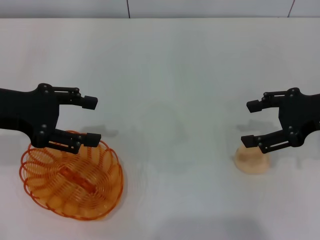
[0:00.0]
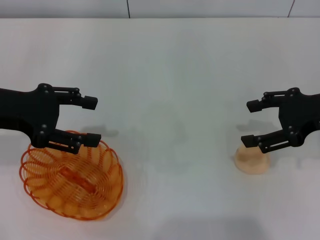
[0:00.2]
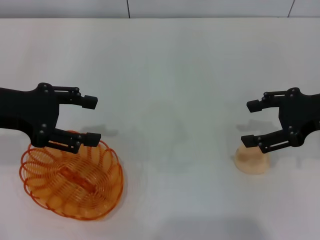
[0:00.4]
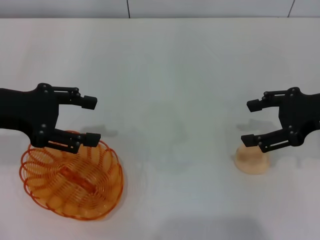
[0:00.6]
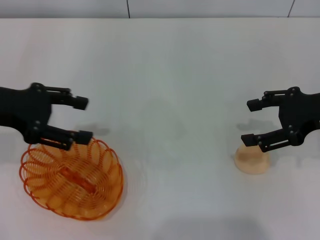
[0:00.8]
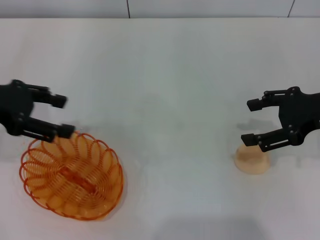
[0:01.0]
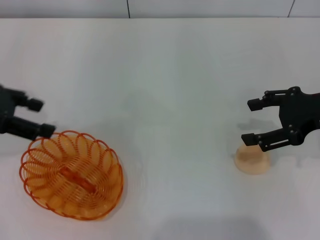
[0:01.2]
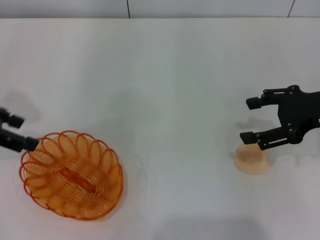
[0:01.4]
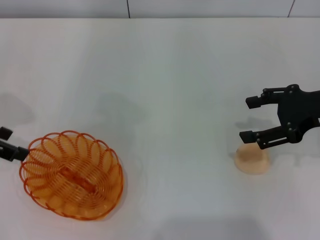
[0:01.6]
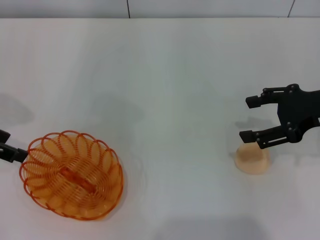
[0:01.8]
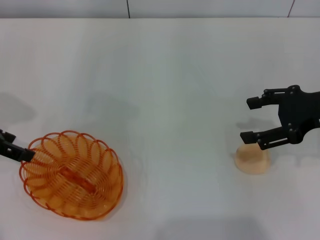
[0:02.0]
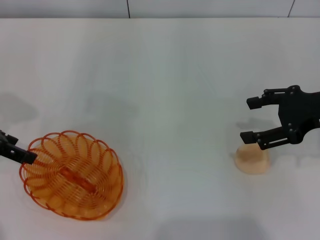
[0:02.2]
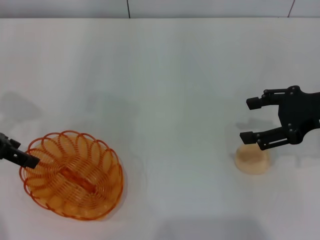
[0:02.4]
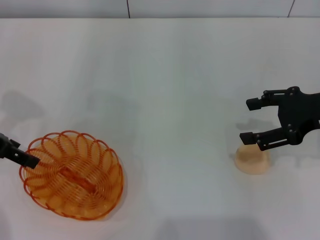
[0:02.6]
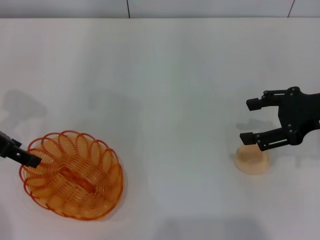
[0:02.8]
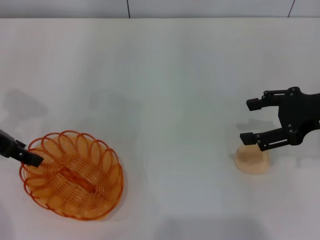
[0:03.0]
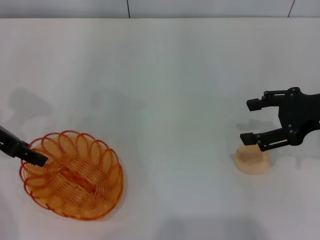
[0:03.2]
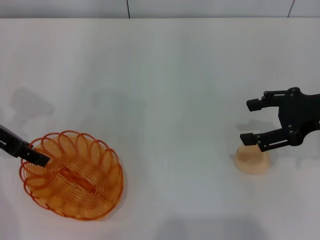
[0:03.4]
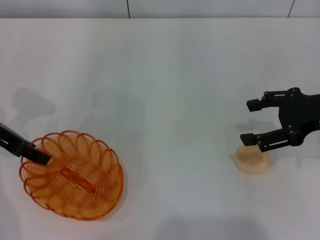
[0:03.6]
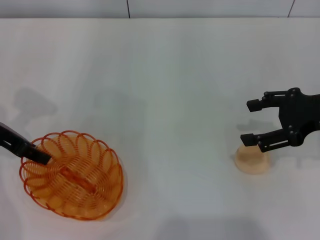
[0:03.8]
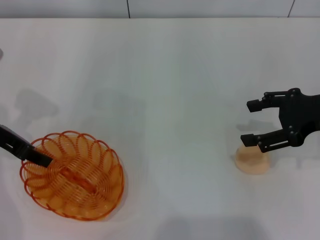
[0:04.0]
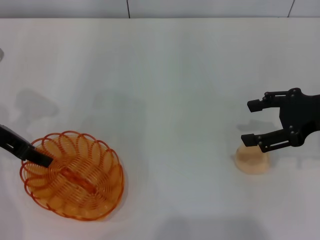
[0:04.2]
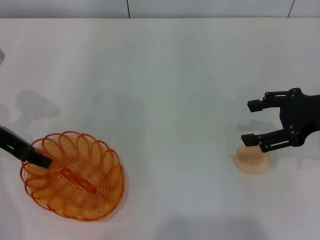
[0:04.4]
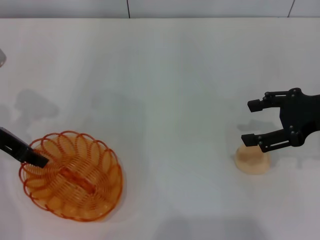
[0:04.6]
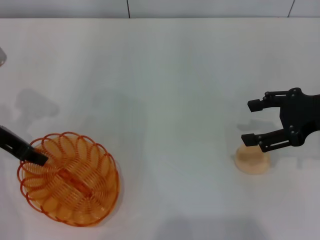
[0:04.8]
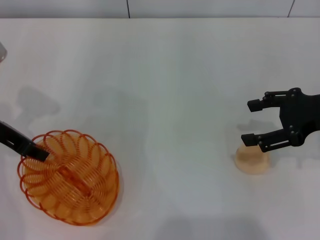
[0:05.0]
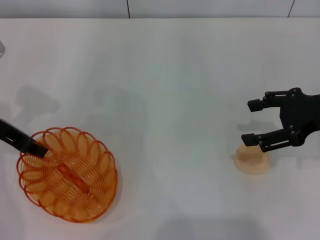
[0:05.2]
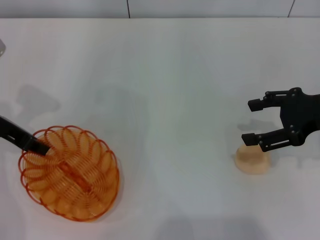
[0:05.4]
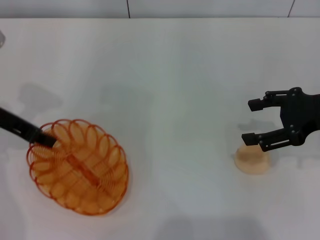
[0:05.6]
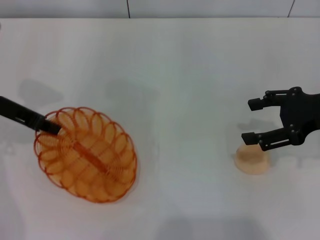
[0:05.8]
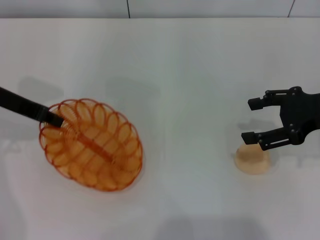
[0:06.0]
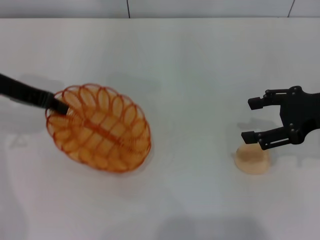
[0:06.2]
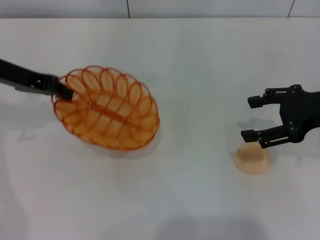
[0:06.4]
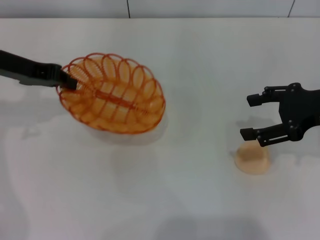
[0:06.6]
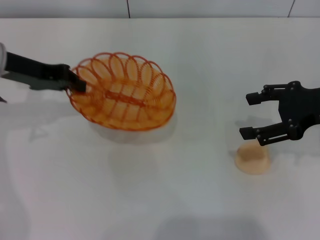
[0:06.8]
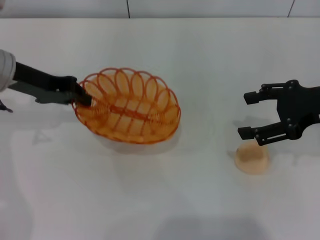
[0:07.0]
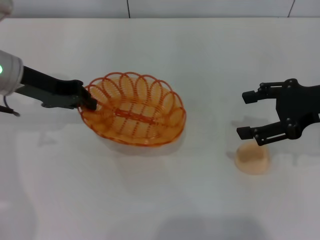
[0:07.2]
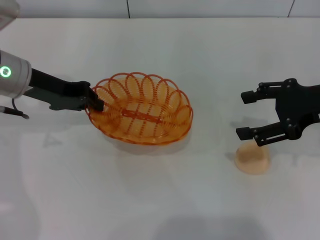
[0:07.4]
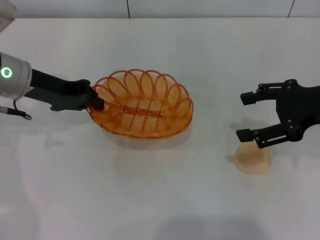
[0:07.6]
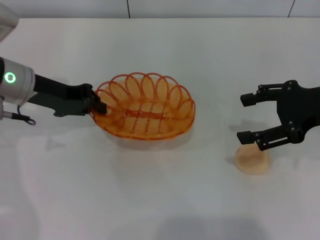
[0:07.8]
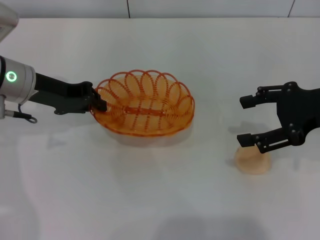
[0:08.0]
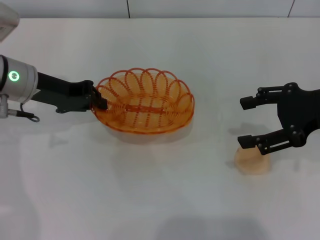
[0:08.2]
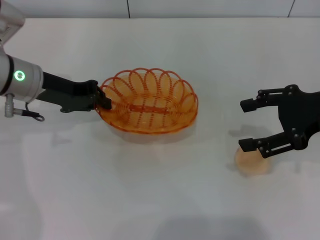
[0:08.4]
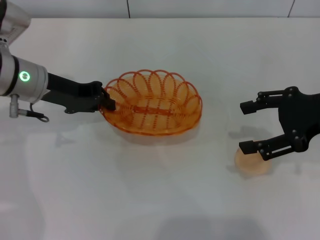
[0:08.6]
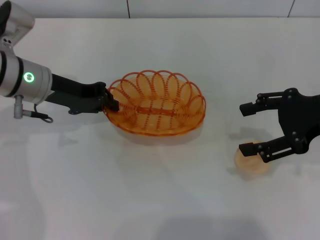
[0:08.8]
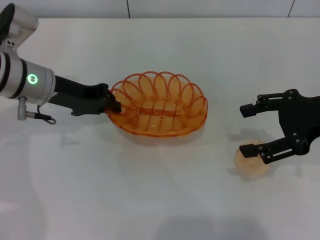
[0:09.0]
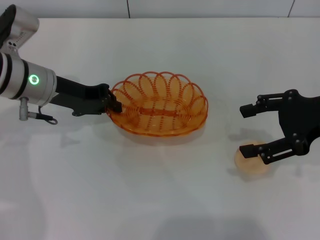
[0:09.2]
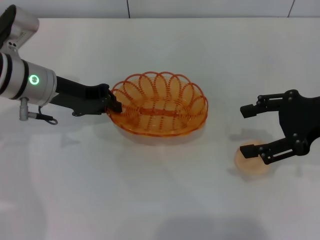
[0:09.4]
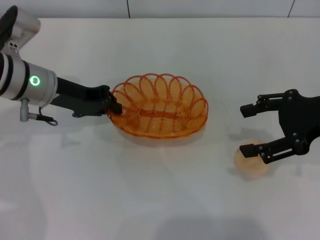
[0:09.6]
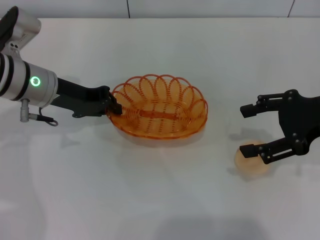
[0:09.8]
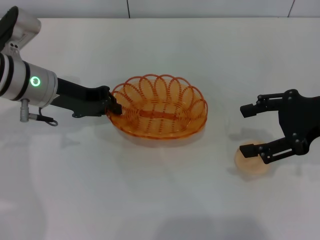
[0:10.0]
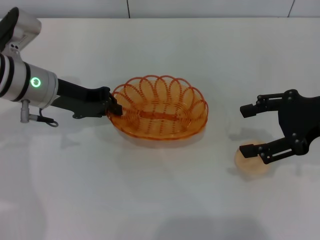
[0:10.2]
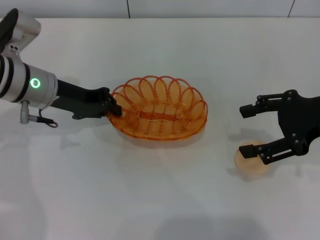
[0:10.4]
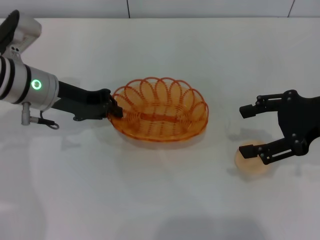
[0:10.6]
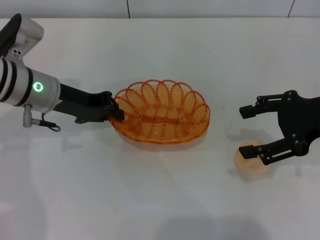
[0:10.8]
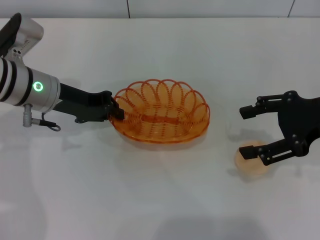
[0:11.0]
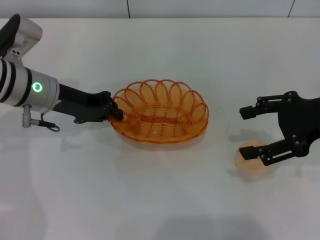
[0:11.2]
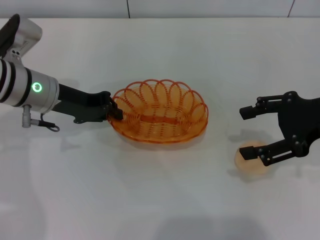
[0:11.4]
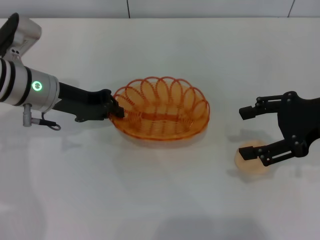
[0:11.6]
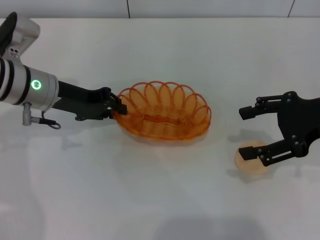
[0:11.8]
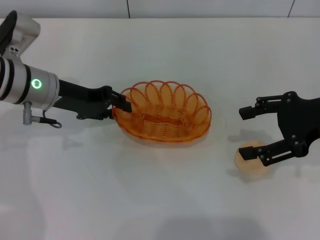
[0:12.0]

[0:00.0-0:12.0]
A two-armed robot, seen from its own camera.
Step, 0:00.0 to 0:06.0: Pick up the basket with the left gripper.
0:00.0 to 0:01.6: The left gripper is displaced to the left by some 5 cm.
0:01.6 to 0:03.0: The grippers move only a little.
0:03.0 to 0:04.4: The left gripper closes up.
0:04.4 to 0:06.0: The left gripper closes.
0:07.6 to 0:09.0: The grippers make only small movements.
0:09.0 to 0:12.0: Both grippers stay put.

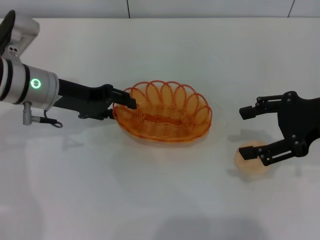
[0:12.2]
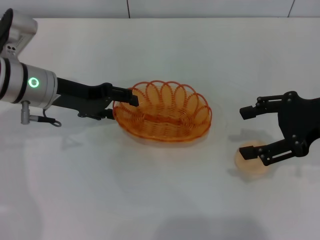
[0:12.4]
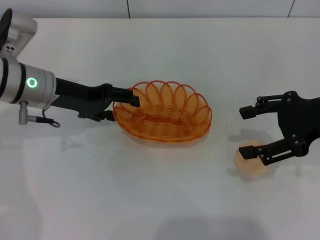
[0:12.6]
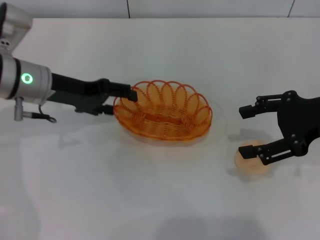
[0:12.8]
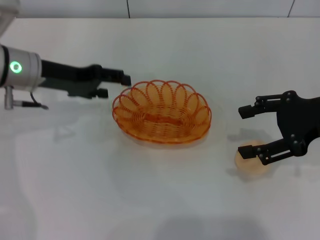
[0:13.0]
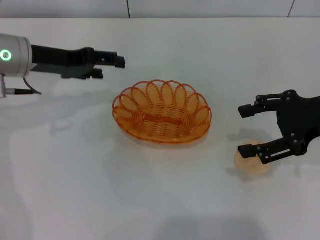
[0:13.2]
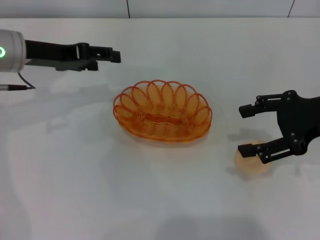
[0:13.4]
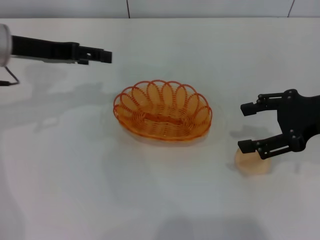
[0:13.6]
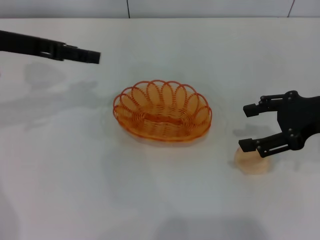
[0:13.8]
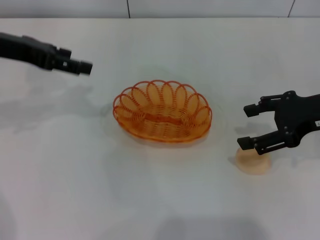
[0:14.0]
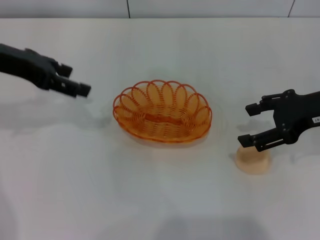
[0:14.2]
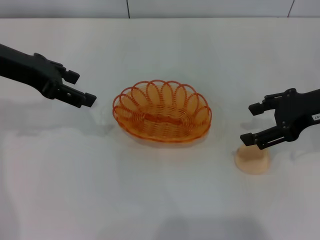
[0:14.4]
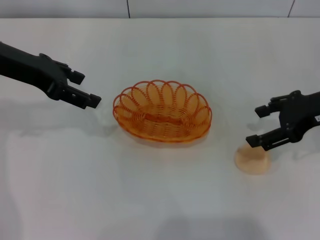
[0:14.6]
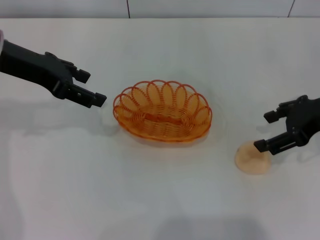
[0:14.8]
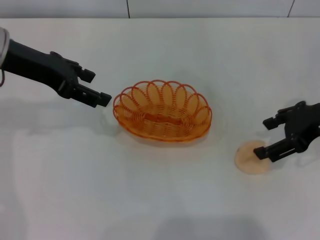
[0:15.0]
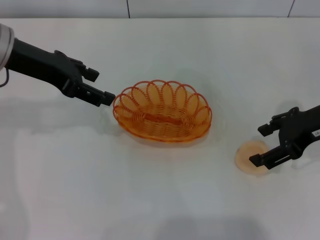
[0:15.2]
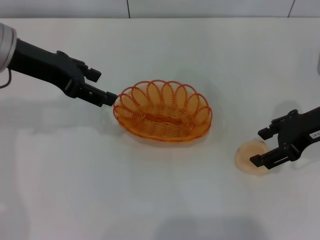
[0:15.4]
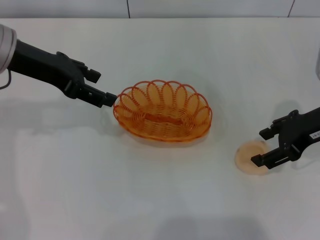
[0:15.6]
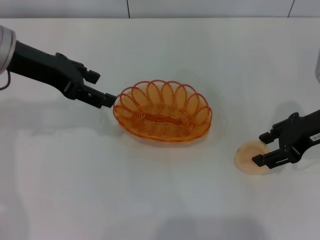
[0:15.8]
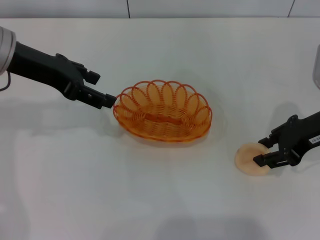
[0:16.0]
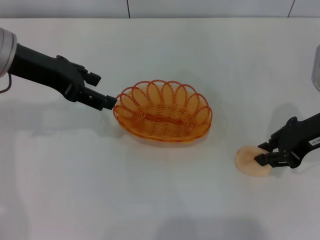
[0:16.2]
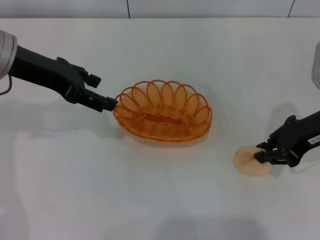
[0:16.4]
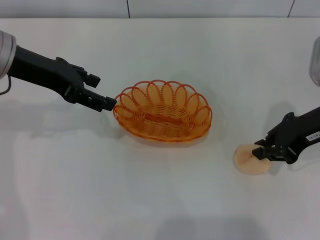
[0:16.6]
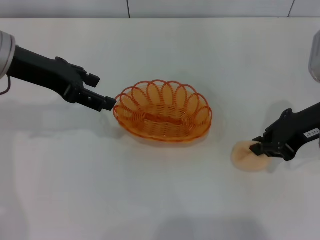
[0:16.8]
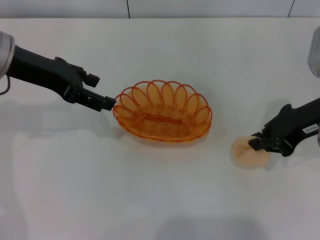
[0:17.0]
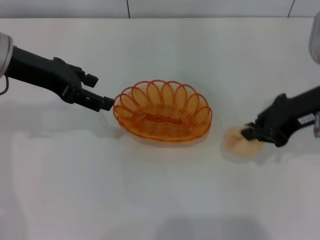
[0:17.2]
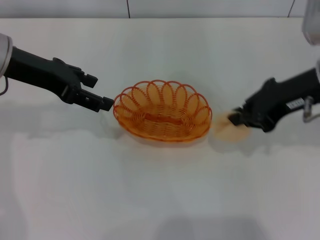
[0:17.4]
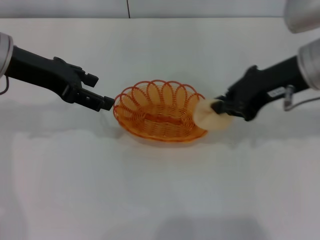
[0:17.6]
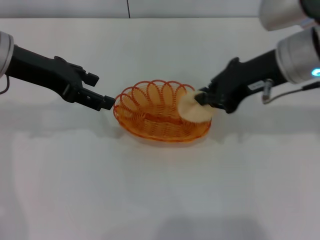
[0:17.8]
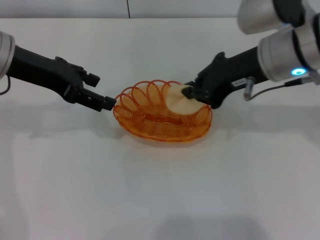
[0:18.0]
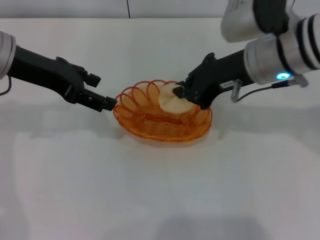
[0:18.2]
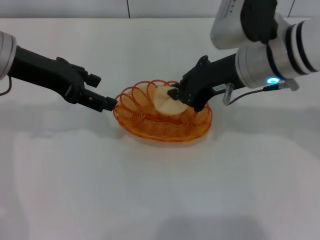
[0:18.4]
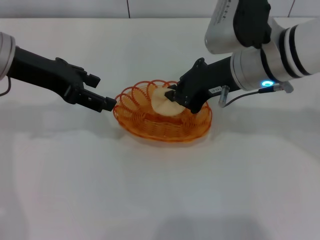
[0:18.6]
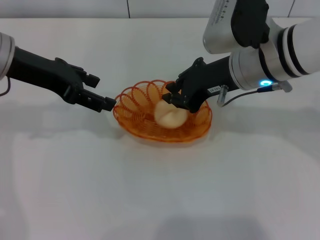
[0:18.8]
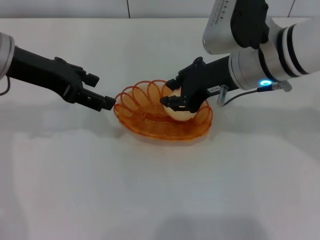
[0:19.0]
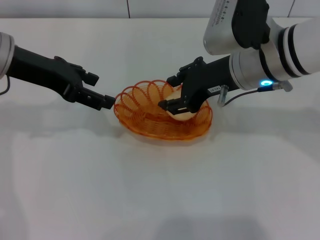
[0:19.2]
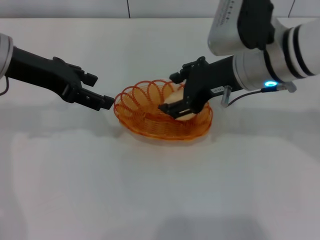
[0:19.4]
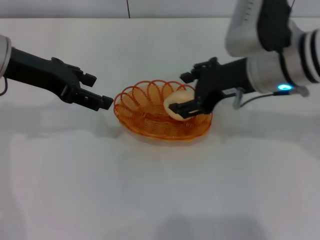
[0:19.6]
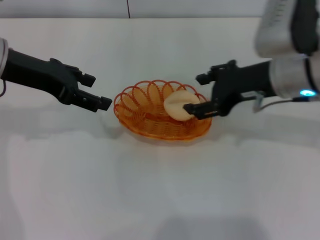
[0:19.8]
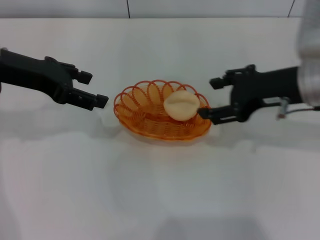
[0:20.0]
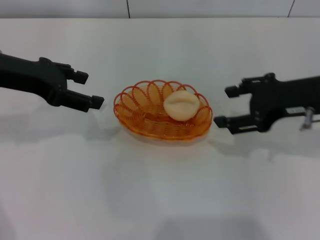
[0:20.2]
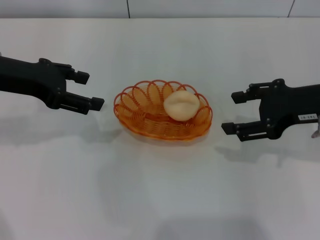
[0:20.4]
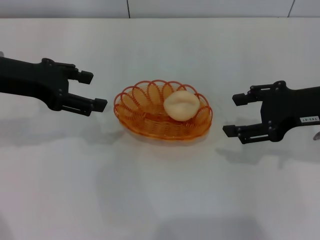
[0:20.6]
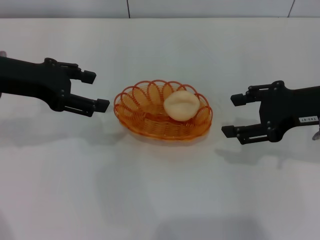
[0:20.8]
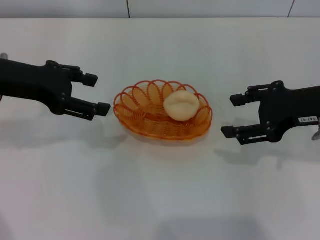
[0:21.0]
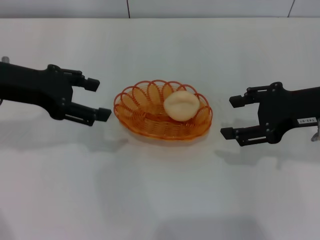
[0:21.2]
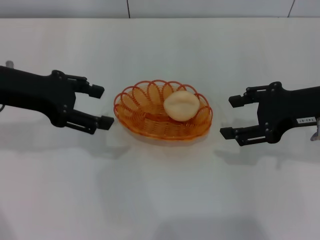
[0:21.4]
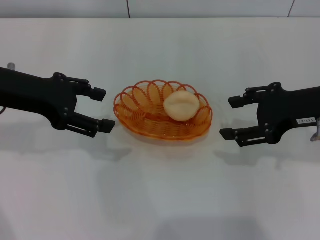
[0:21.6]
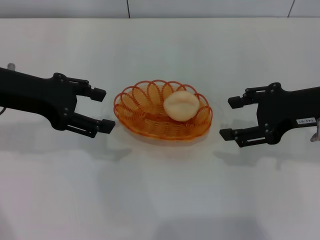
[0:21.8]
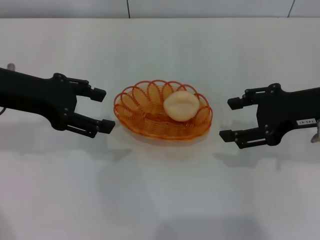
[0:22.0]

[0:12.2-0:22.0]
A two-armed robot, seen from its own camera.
Step, 0:13.4 to 0:17.2: Pick up the egg yolk pastry with the right gripper.
Step, 0:17.6 to 0:19.8: Place the egg yolk pastry into the basket with the right gripper.
0:12.2 to 0:13.6: The left gripper shifts about 5 cm upward, and opens its fingers.
0:15.0 to 0:16.4: The right gripper closes its fingers.
0:16.4 to 0:17.8: The right gripper moves to the left and upward, some 10 cm.
0:17.8 to 0:19.2: The right gripper ends up approximately 5 cm from where it was, and opens up.
0:19.2 to 0:20.6: The right gripper is displaced to the right and backward by roughly 15 cm, and opens.
0:20.6 to 0:22.0: The grippers make only small movements.
